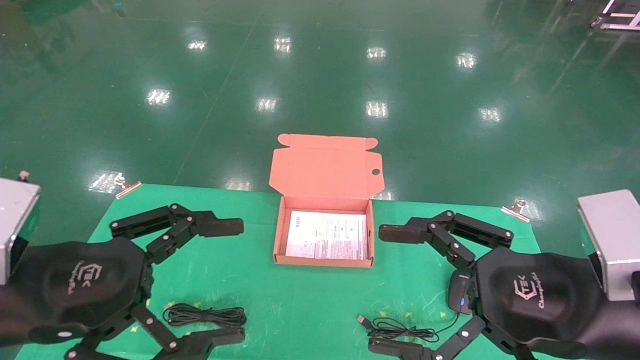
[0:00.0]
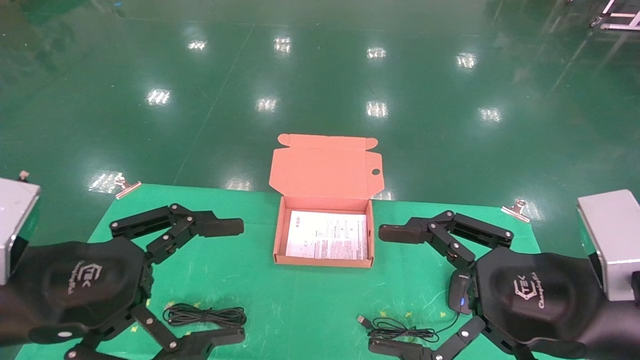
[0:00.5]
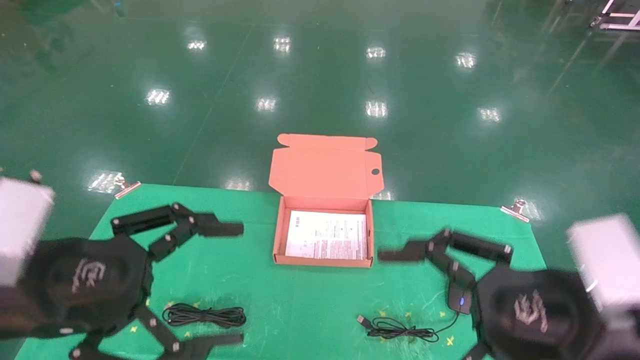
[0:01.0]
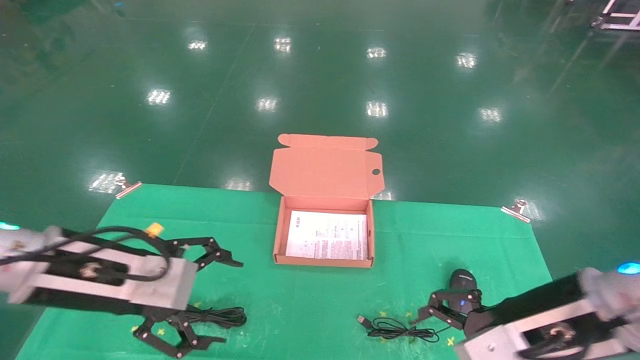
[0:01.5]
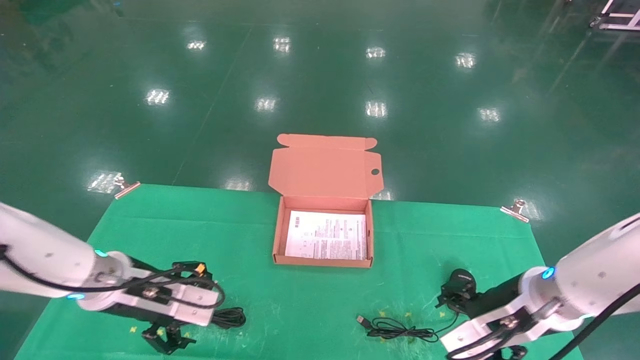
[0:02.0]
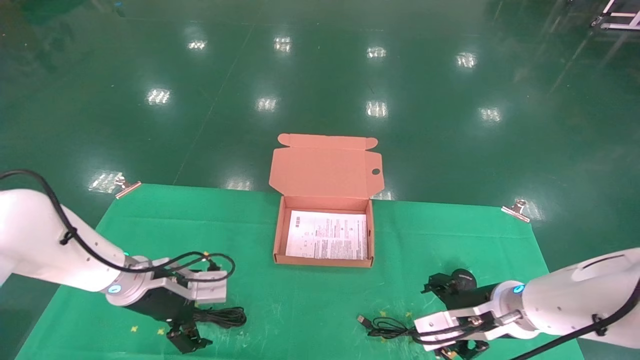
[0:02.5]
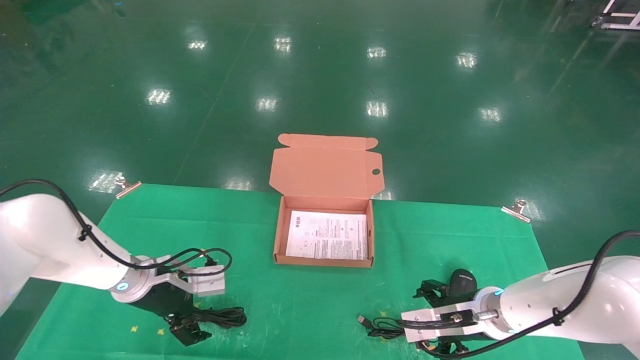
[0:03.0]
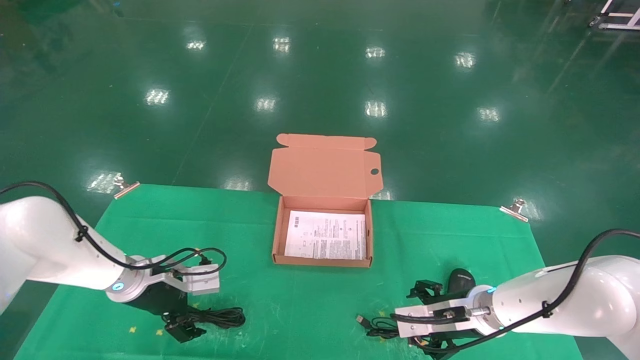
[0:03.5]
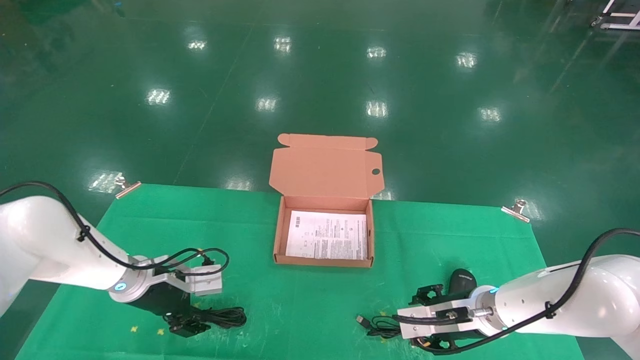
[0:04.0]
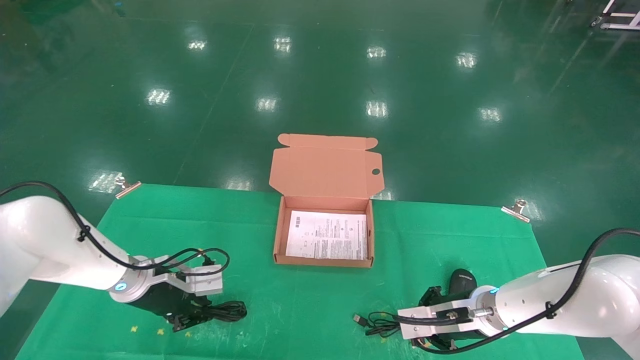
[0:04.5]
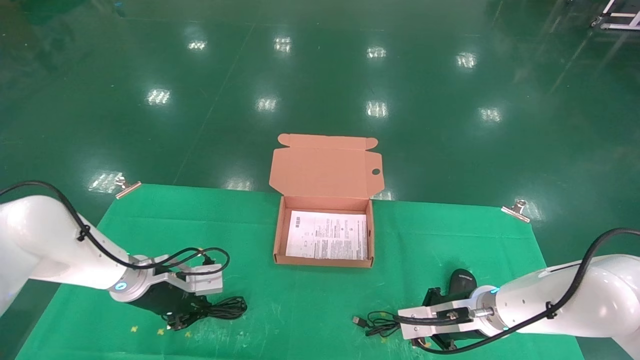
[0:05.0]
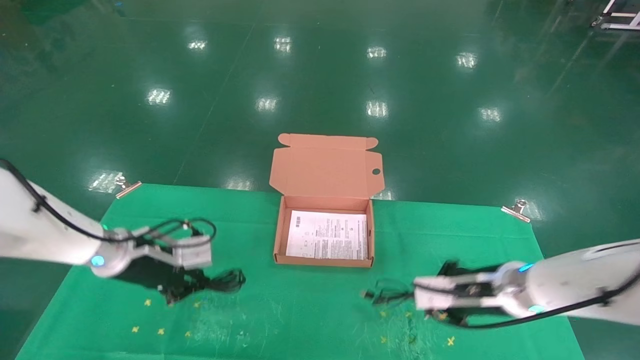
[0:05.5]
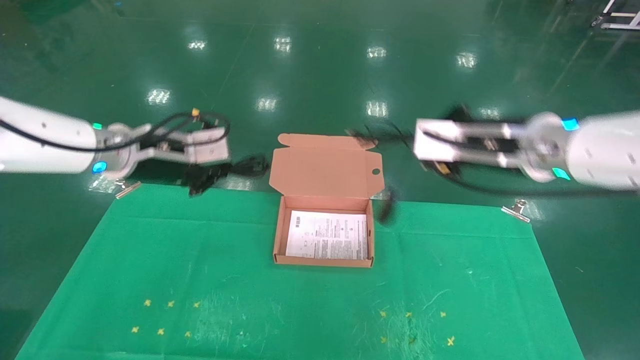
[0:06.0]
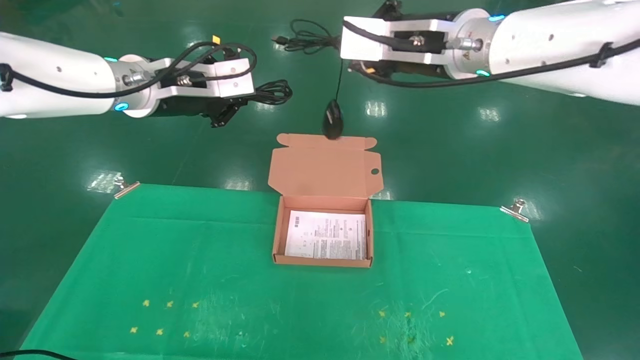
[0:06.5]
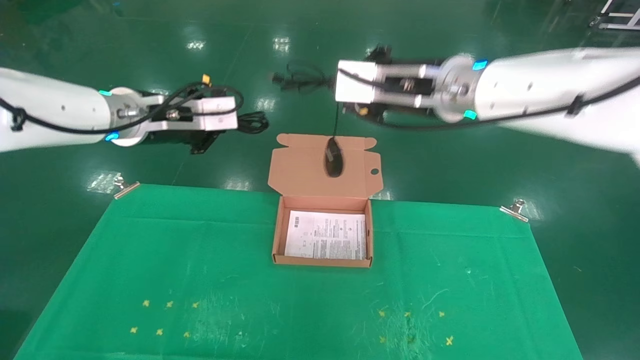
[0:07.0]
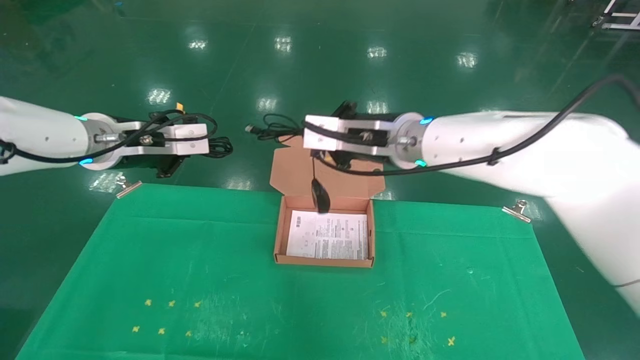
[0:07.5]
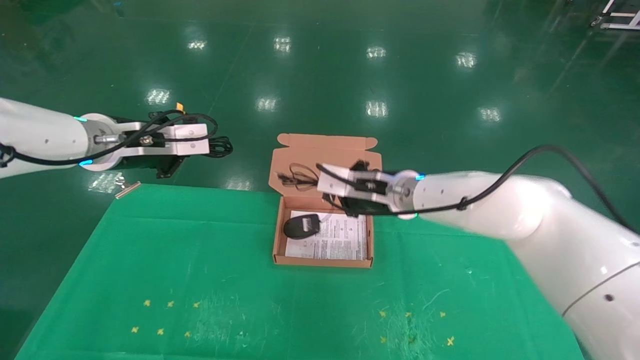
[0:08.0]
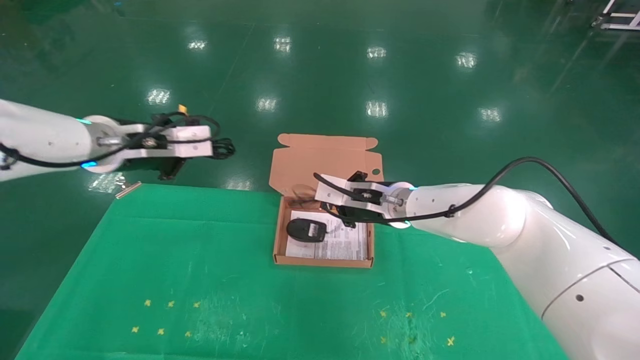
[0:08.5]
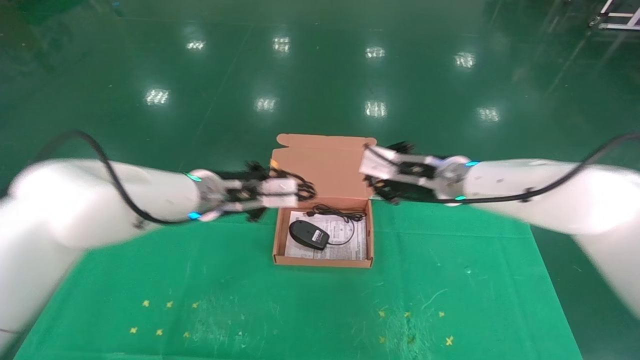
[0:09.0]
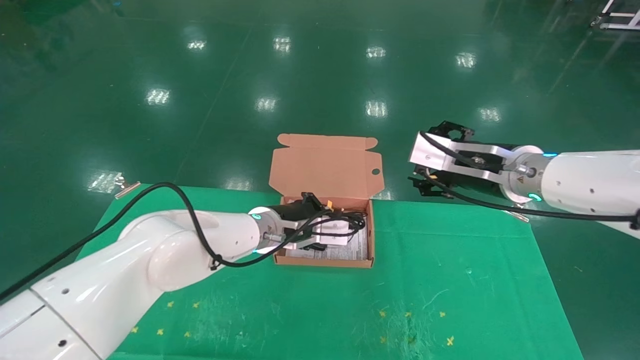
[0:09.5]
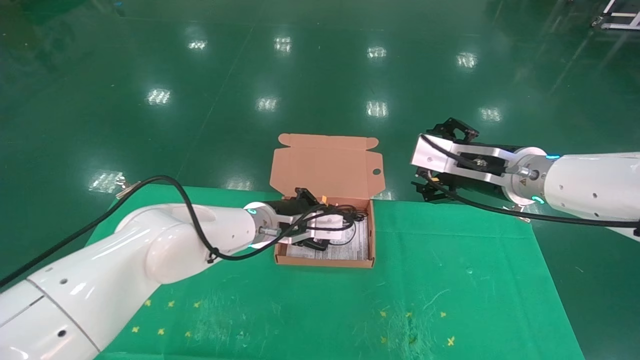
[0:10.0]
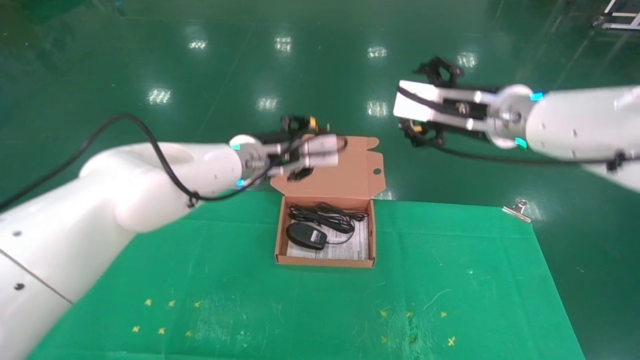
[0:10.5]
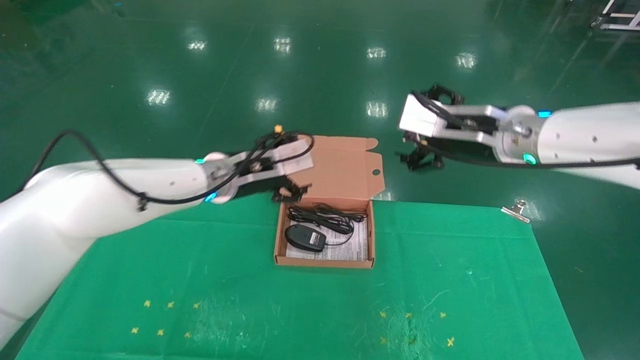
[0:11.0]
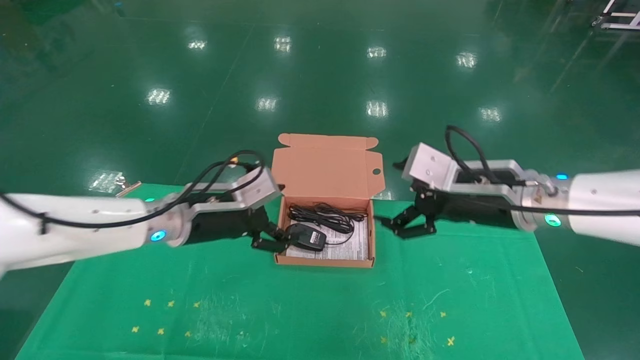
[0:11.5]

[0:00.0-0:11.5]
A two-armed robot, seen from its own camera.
Task of the whole recording: grasp data cable left put into box grasp mouse right put into box.
Step, 0:01.5 to 0:04.5: Grab and pick up both the mouse and power cord from the accessory packaging area at the same time.
Step, 0:05.0 to 0:09.5: Place the mouse and power cord into the box.
0:00.0 to 0:02.0: The grippers both shift forward and downward by approximately 15 cm.
0:02.0 to 0:04.0: The left gripper goes approximately 10 cm forward and downward. Meanwhile the right gripper moves downward and forward, approximately 10 cm.
0:04.0 to 0:06.0: The two grippers go about 25 cm upward. The left gripper closes up. Meanwhile the right gripper closes up.
0:06.0 to 0:07.5: The right gripper travels to the left and forward by about 15 cm.
0:07.5 to 0:09.5: The right gripper moves to the right, some 15 cm, and opens up; the left gripper travels to the right and downward by about 25 cm.
0:09.5 to 0:11.5: The right gripper travels upward and back again, some 5 cm each way. The left gripper is displaced to the left and backward by some 15 cm, and opens its fingers.

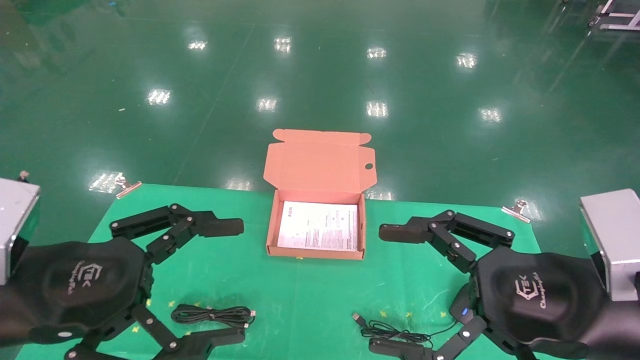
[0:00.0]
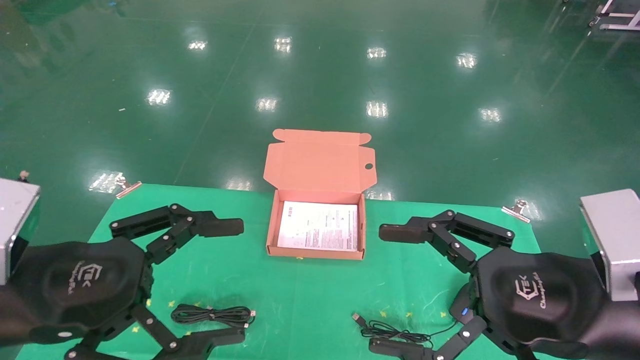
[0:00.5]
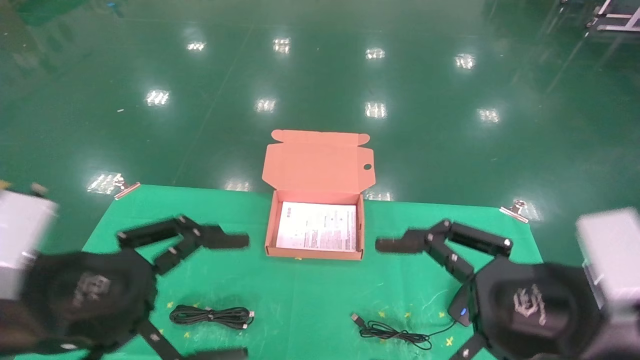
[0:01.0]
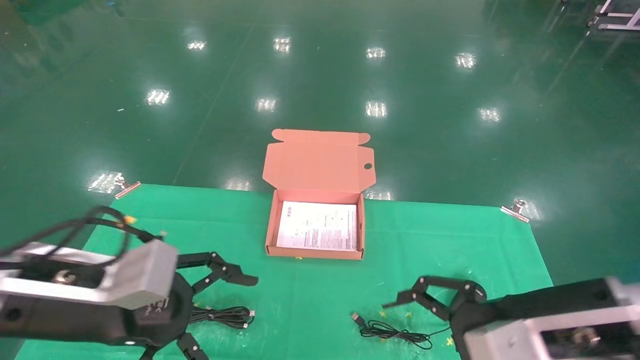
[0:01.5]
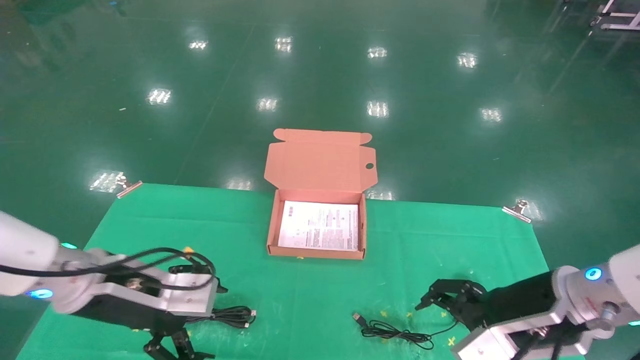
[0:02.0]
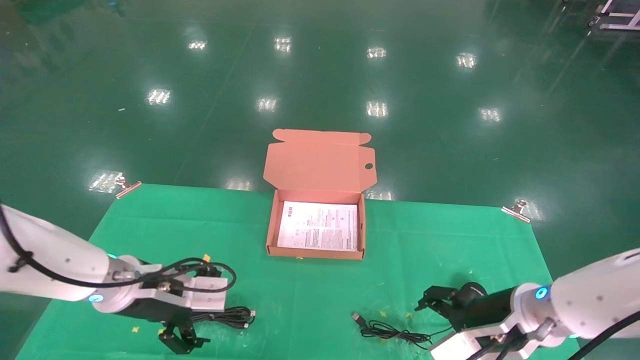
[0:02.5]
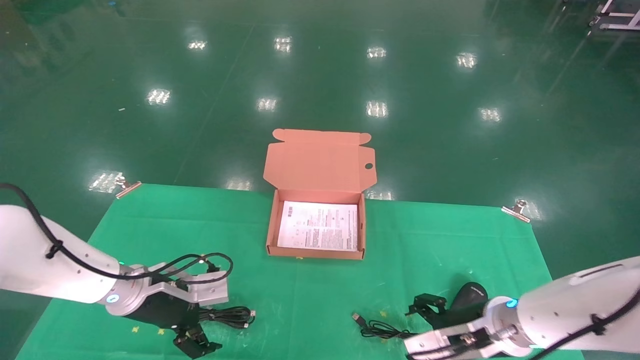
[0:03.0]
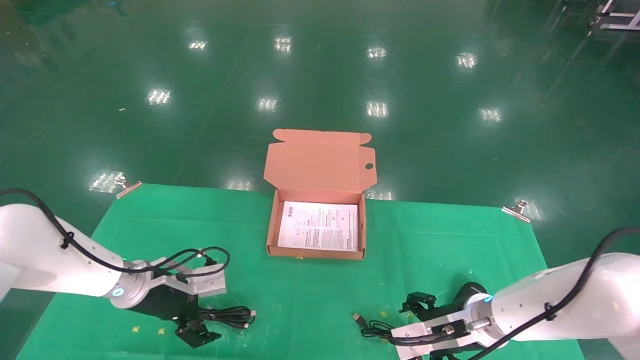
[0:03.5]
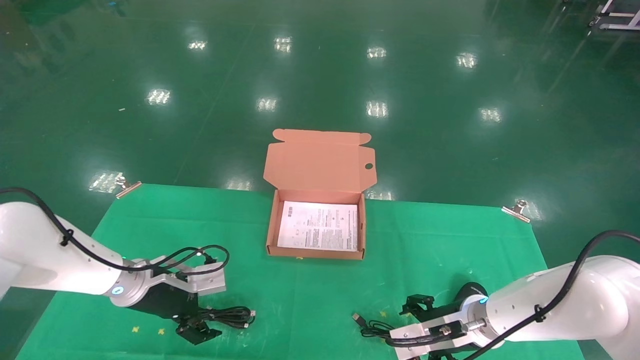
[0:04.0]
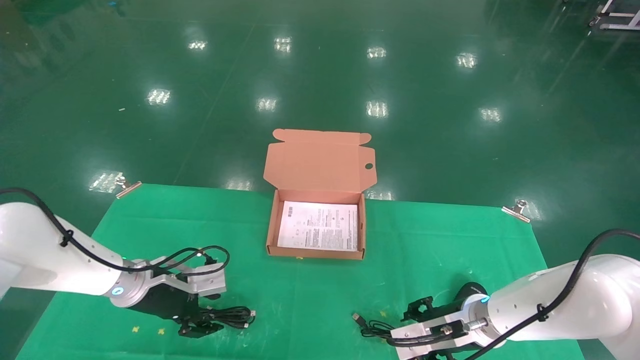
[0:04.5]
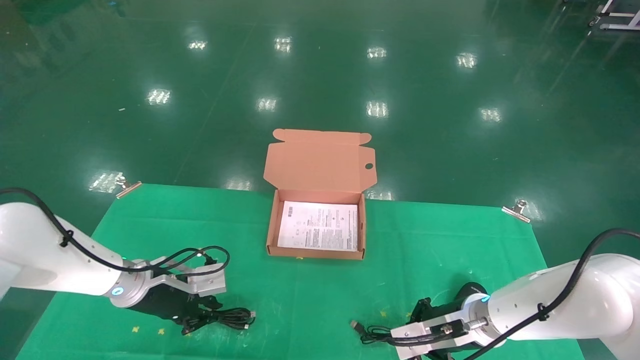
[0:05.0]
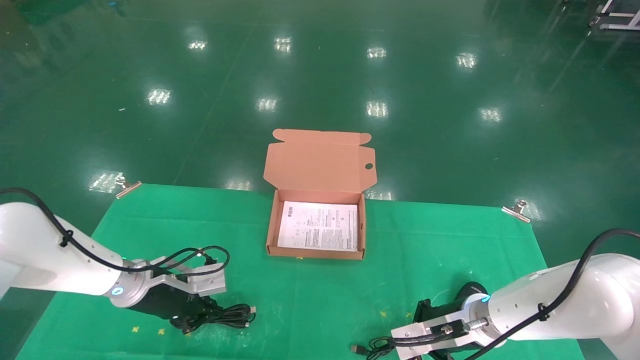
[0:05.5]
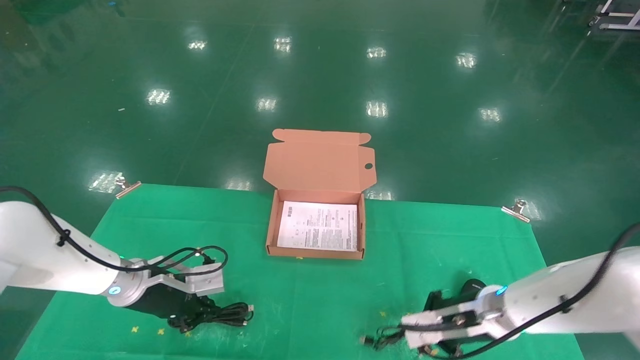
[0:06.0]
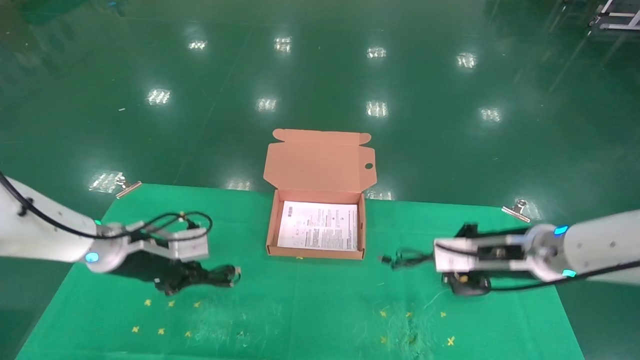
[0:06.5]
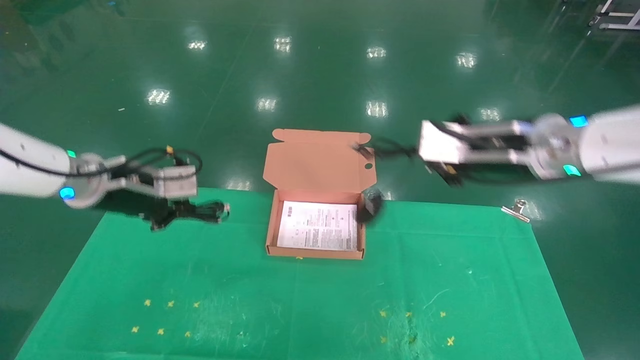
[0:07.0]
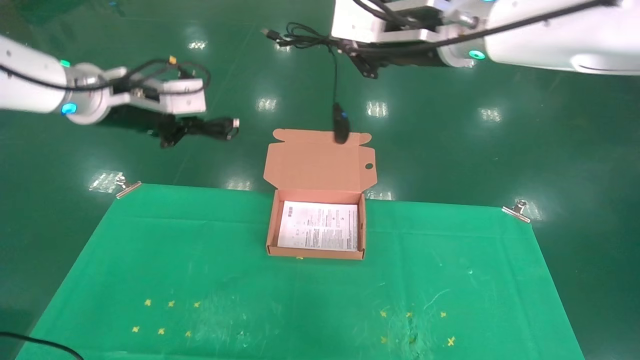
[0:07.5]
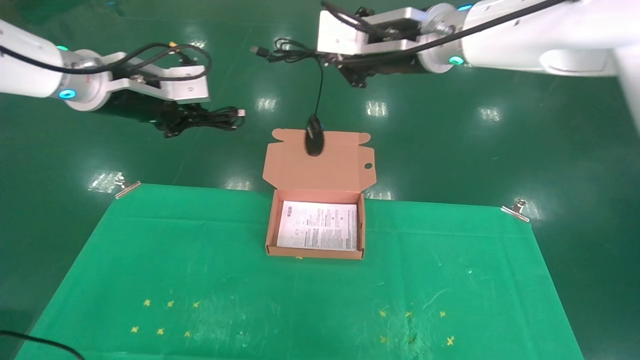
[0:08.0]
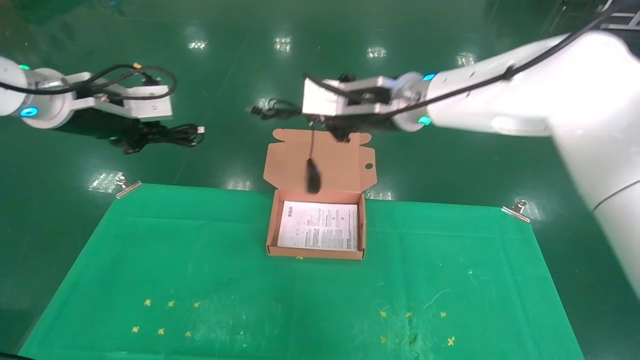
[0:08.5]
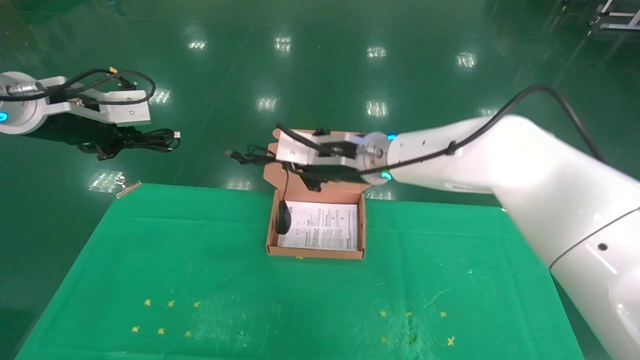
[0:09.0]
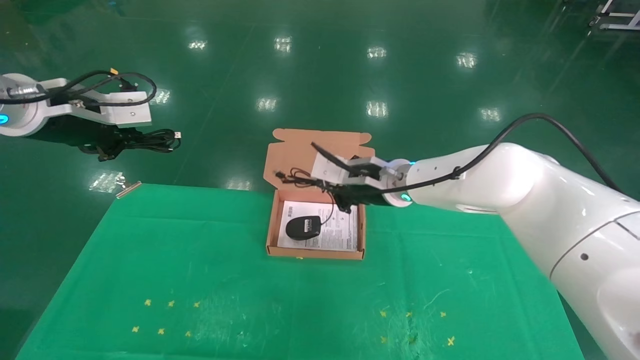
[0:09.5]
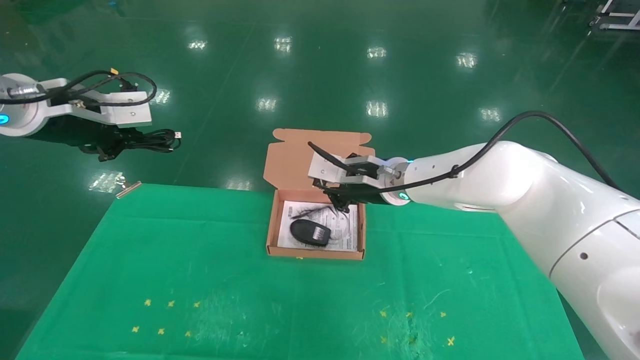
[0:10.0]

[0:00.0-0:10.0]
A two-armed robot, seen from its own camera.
Task of the whole recording: grasp data cable left put into box grasp mouse right put into box.
Step, 0:01.0 to 0:05.5: Grab and pick up both the mouse and power cord from the accessory packaging area at the same time.
0:00.0 to 0:02.0: The grippers both shift forward and downward by roughly 15 cm.
0:02.0 to 0:04.0: The left gripper heads forward and downward, covering about 15 cm; the right gripper is displaced downward and forward by approximately 15 cm.
0:04.0 to 0:06.0: The left gripper closes up; the right gripper closes its fingers.
0:06.0 to 0:08.0: Both grippers travel together upward, some 30 cm.
0:08.0 to 0:10.0: The left gripper travels to the left by some 5 cm. The right gripper is displaced downward by approximately 20 cm.
